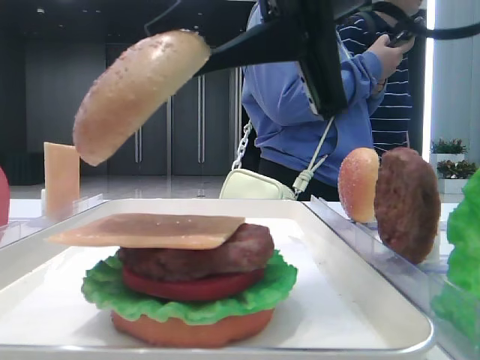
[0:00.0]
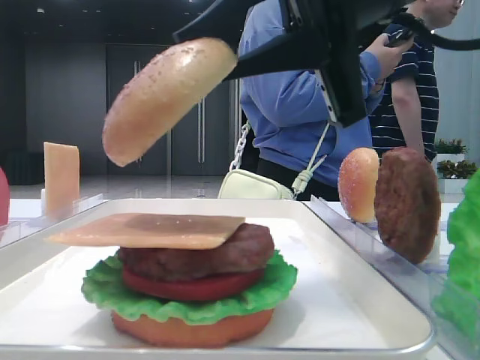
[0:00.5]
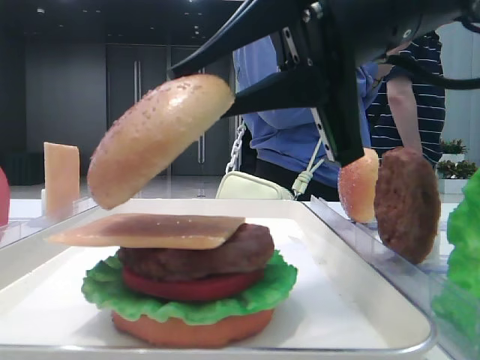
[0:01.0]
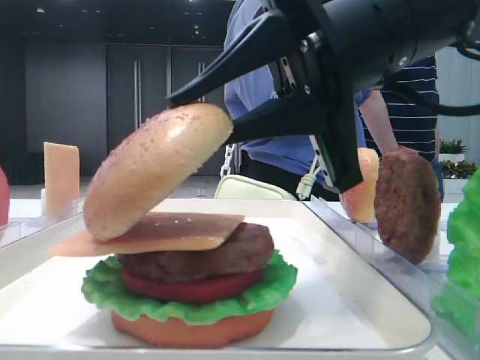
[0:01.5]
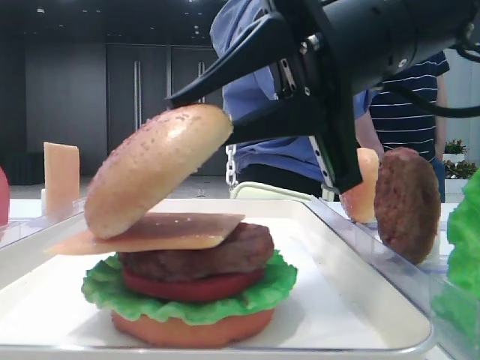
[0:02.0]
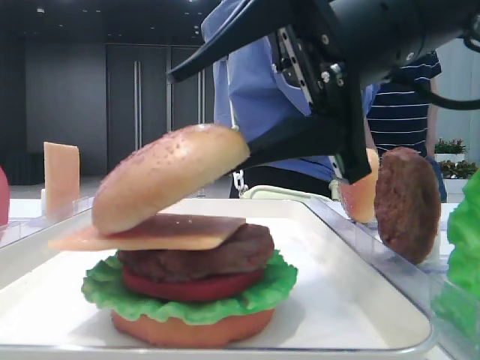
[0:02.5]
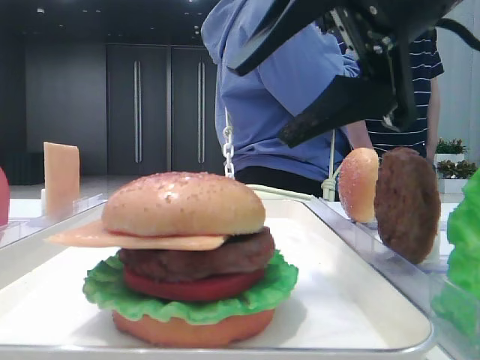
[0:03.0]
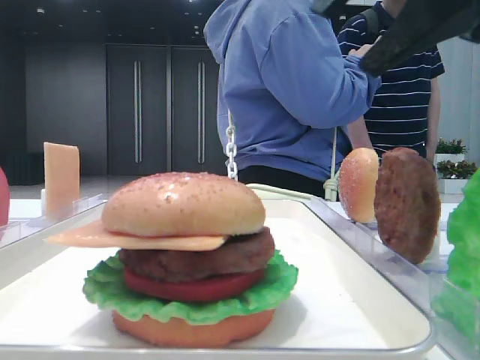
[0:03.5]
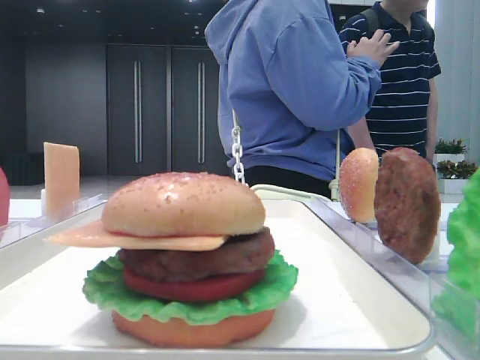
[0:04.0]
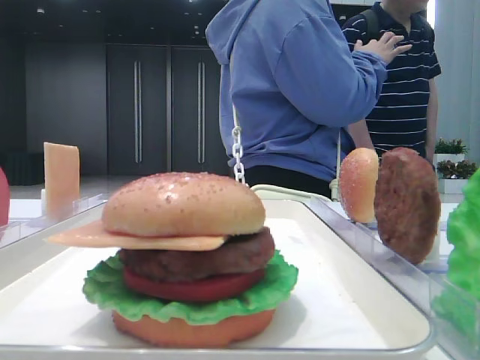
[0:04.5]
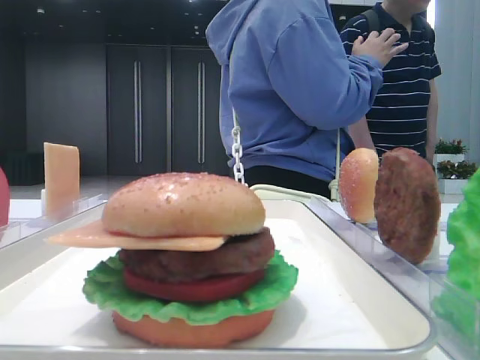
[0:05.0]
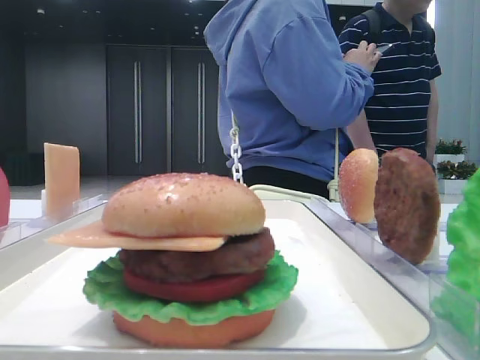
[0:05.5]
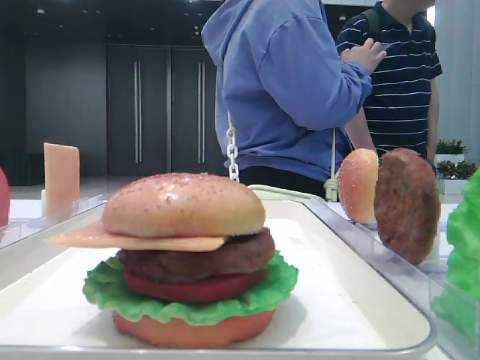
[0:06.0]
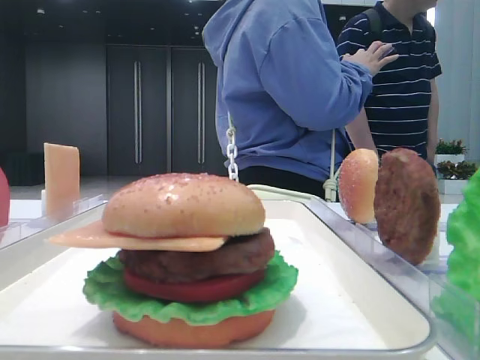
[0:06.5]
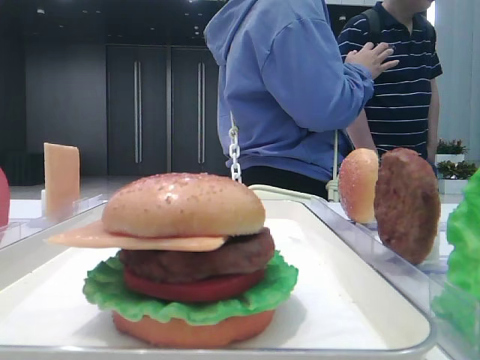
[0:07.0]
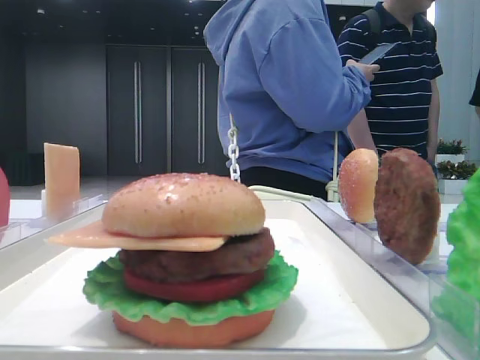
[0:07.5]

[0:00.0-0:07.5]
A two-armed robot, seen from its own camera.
Step, 0:00.0 to 0:02.5: Place the top bread slice on the cheese with the right hand.
0:00.0 to 0:02.0: The right gripper shifts by some 5 cm.
0:02.0 to 0:04.0: The right gripper moves to the right and upward, approximately 20 cm, and opens up.
0:04.0 to 0:05.5: The right gripper travels backward by about 20 cm.
0:05.5 to 0:07.5: The right gripper moves backward, approximately 5 cm.

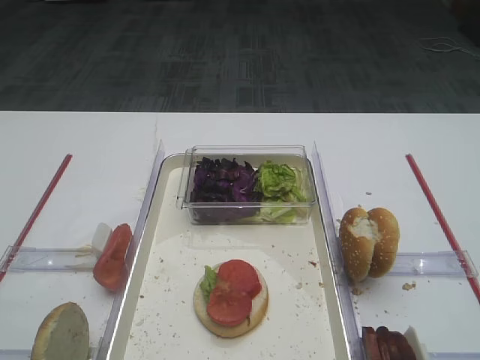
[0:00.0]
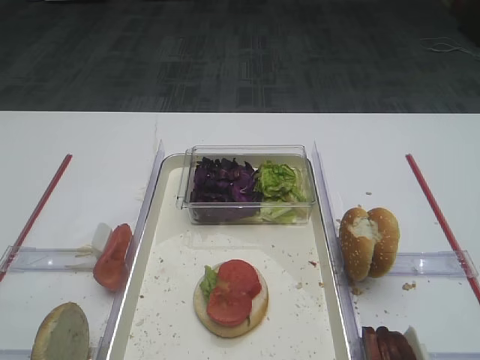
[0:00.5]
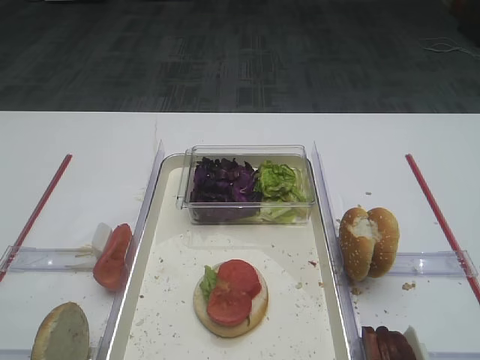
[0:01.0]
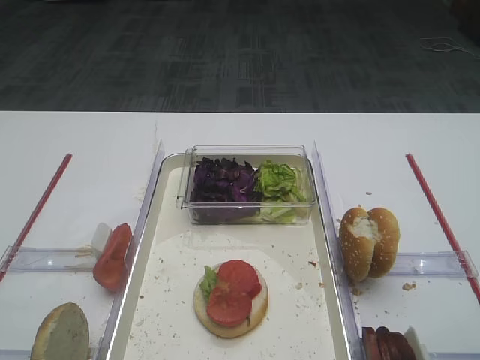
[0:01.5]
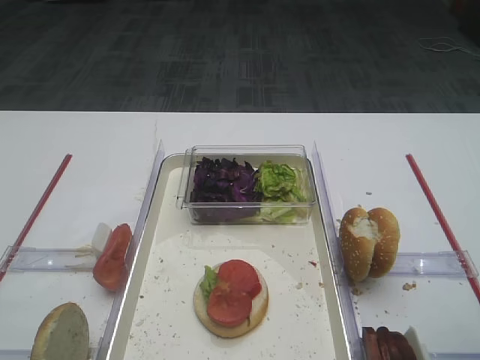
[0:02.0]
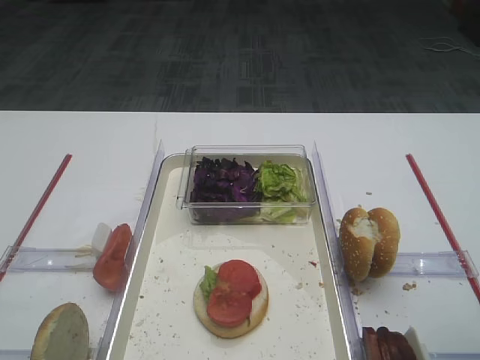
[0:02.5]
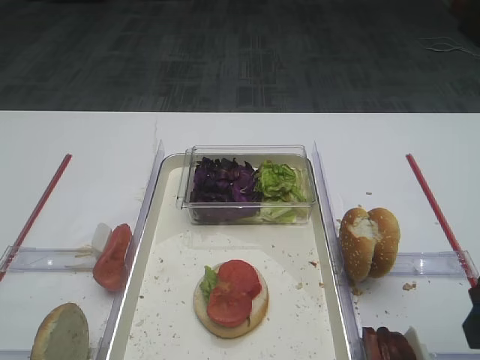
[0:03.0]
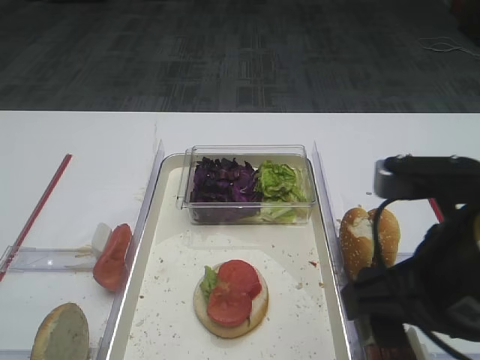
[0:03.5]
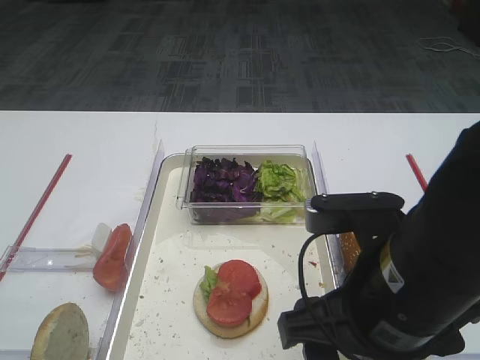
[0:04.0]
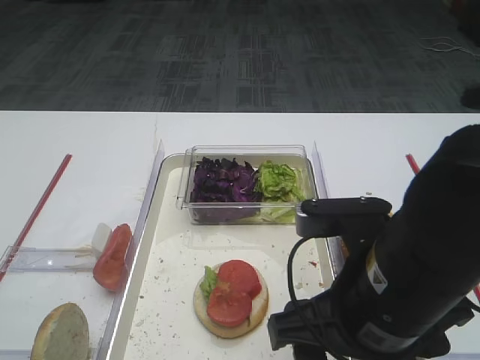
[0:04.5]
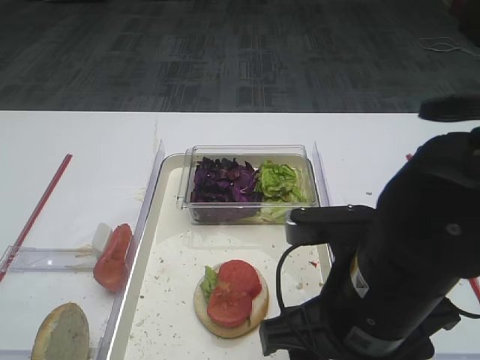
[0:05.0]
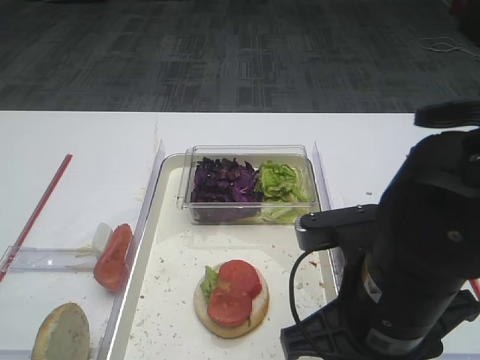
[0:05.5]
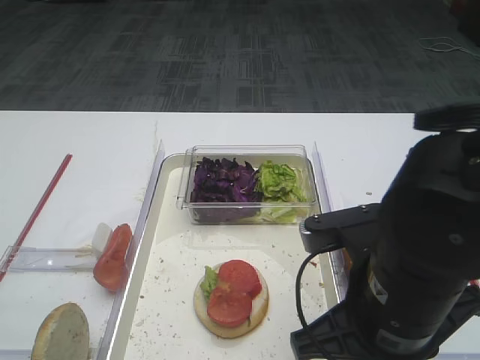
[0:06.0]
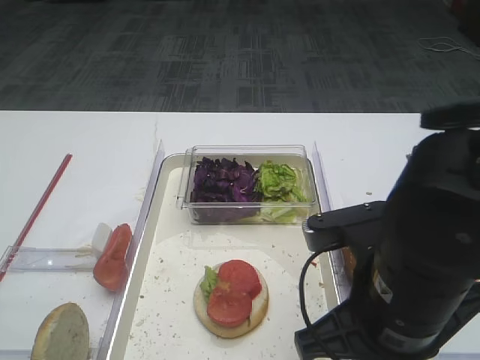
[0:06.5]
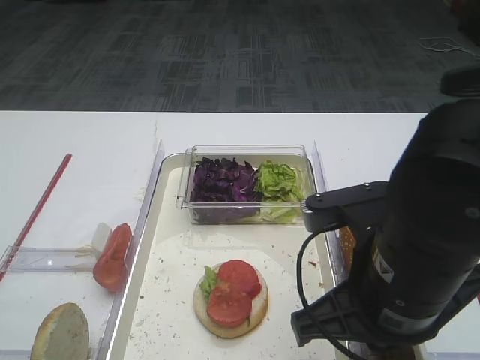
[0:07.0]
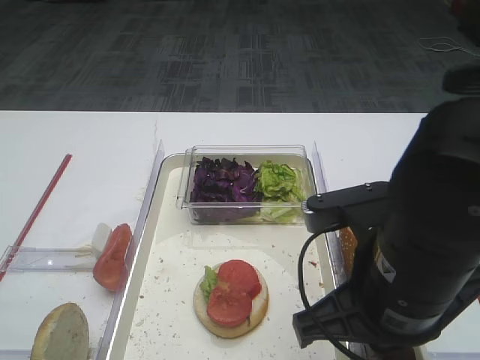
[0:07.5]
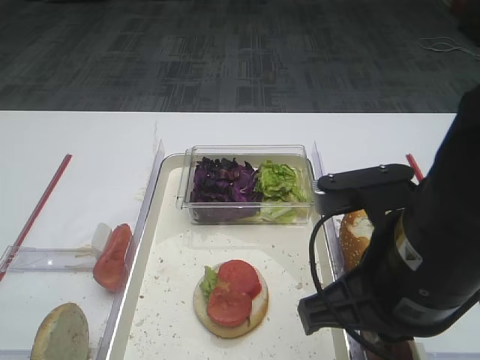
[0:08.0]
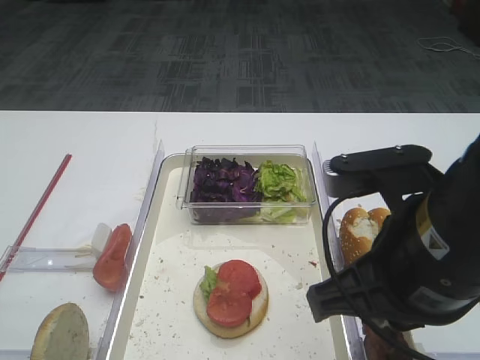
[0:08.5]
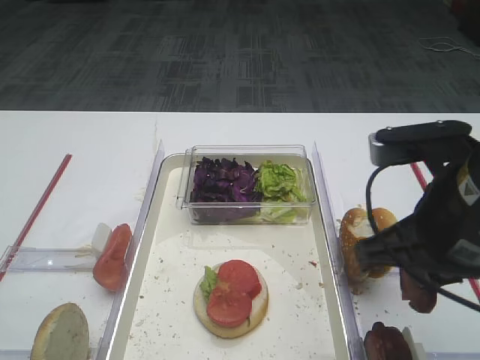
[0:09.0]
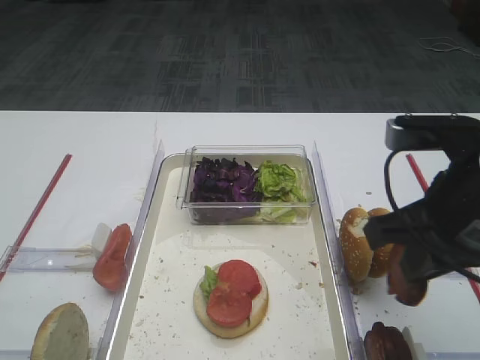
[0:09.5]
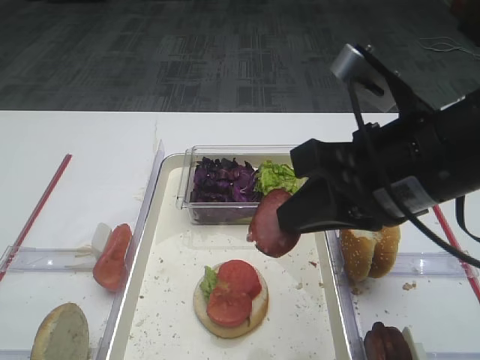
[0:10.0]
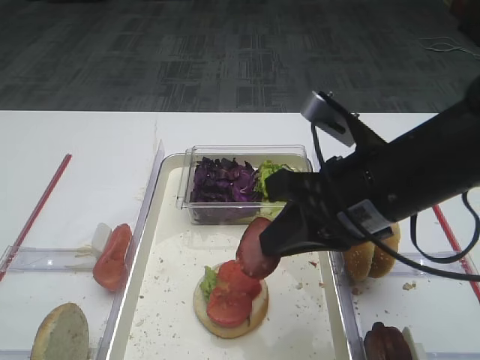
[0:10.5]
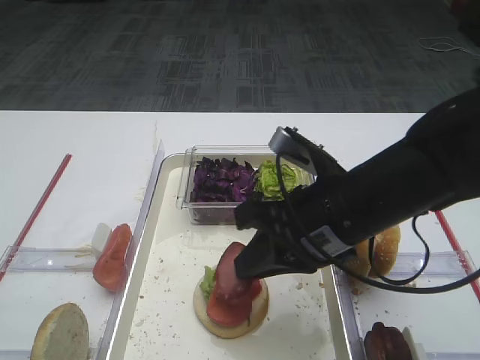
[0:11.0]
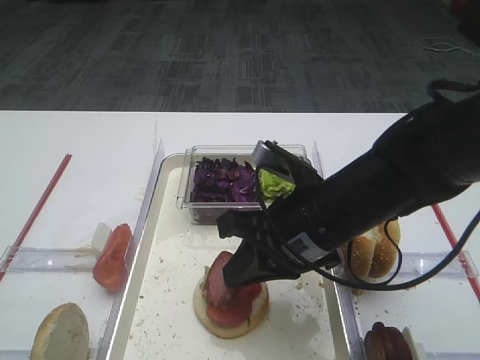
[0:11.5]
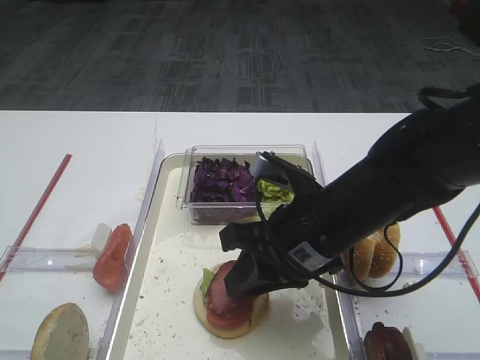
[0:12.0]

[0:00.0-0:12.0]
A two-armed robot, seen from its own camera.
Step, 0:00.0 to 0:08.5: Pick up the cutlet with the right gripper.
0:02.0 to 0:04.0: The right gripper is displaced to the left by roughly 15 cm.
0:04.0 to 0:06.0: The right gripper closes up.
0:06.0 to 0:08.0: There are only small adjustments of the grippers.
0:08.0 to 0:10.0: The right gripper ends up some 5 cm from where it was.
0:10.0 to 0:12.0: The right gripper heads downward and to the left, covering some 10 cm.

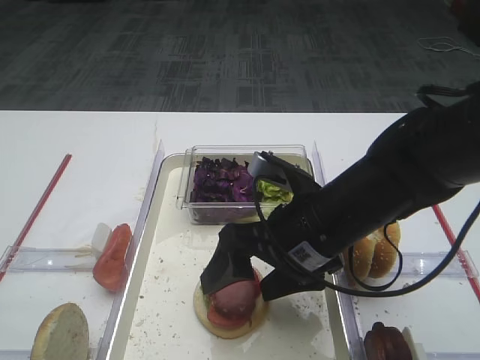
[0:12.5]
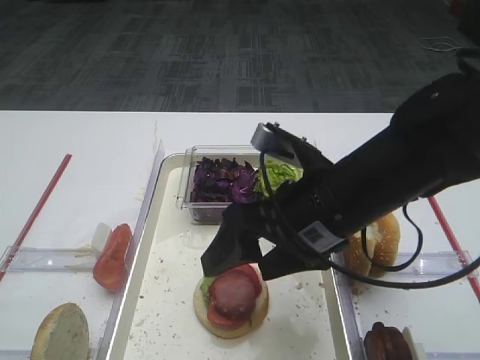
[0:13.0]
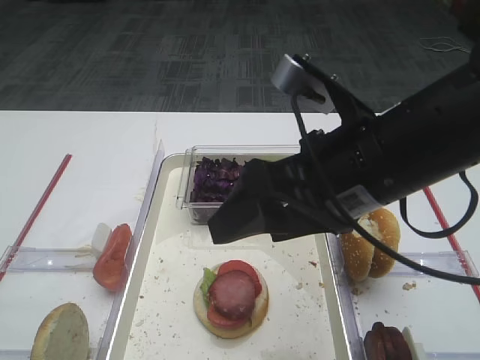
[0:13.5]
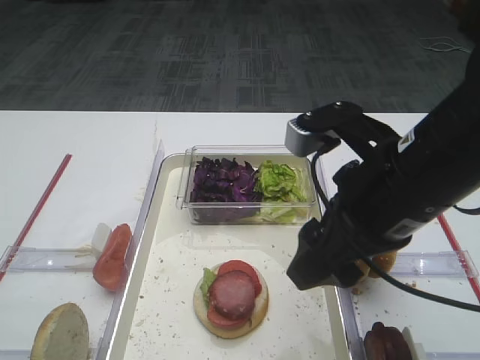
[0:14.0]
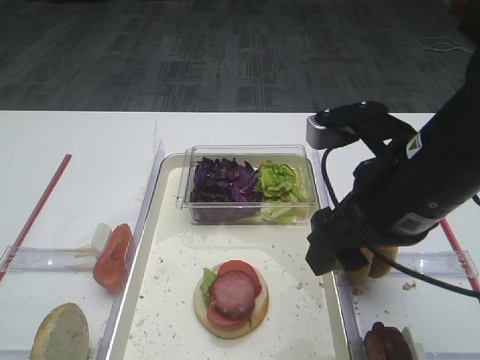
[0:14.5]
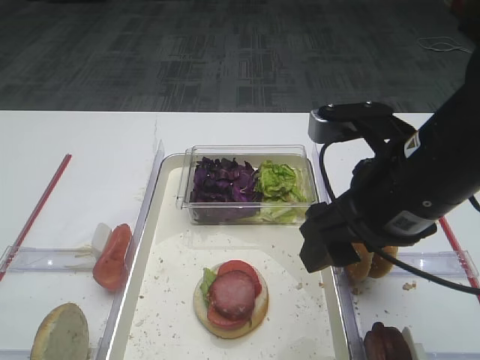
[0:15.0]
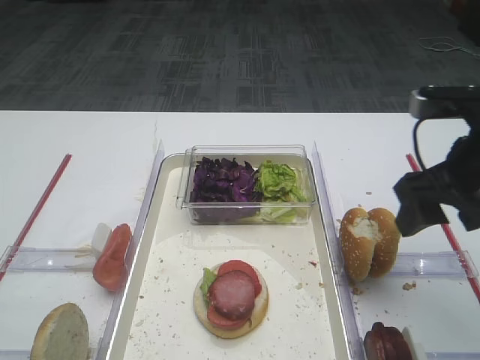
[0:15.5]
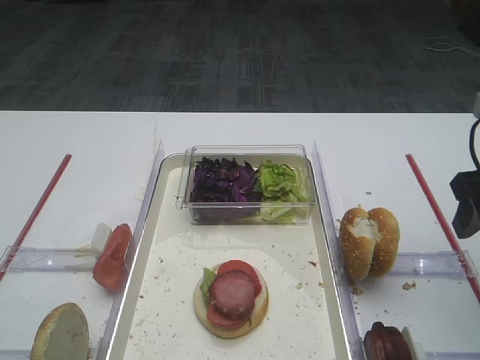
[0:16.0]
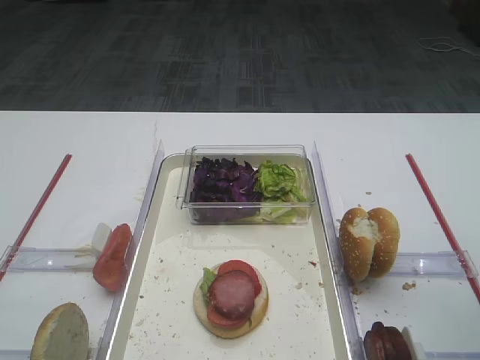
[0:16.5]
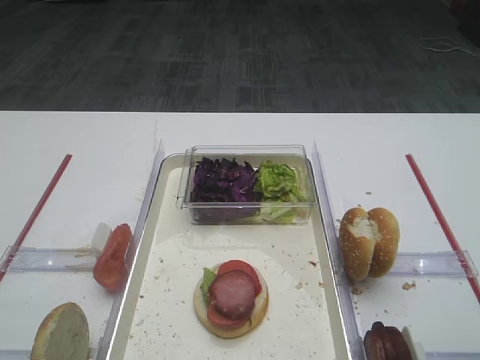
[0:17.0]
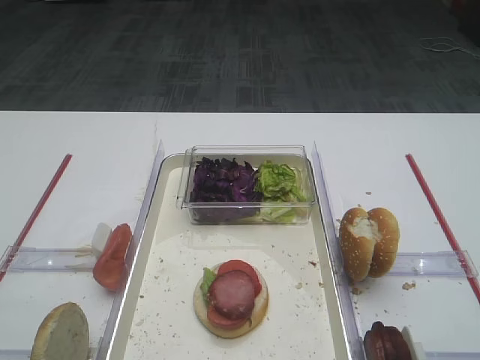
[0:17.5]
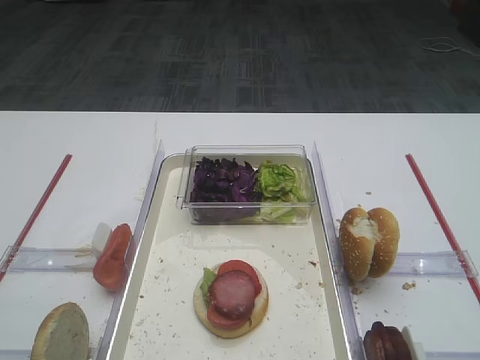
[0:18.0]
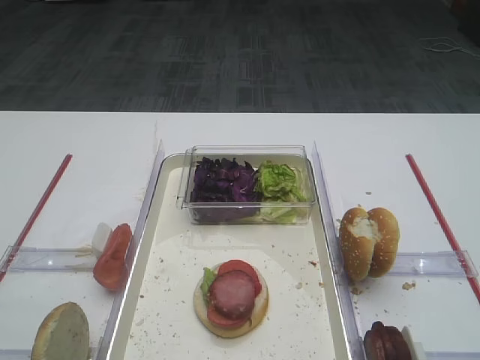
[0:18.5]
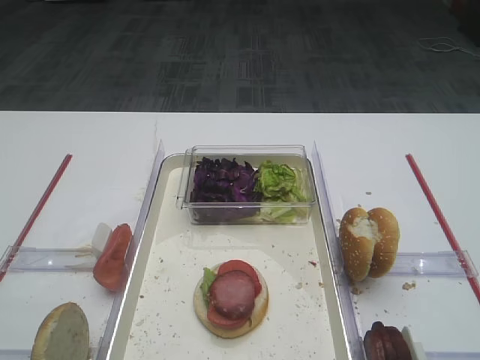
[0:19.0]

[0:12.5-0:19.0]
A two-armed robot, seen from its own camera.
0:12.5 to 0:14.5: The right gripper moves upward and to the right, some 10 cm.
0:14.5 to 0:17.0: The right gripper travels to the right and backward by about 20 cm.
